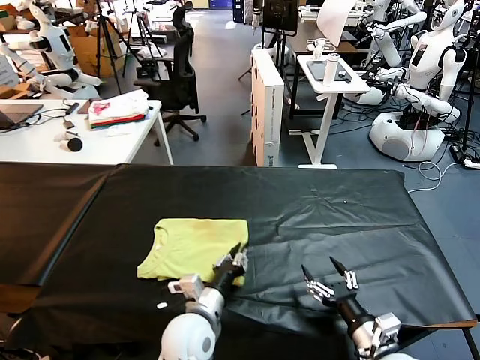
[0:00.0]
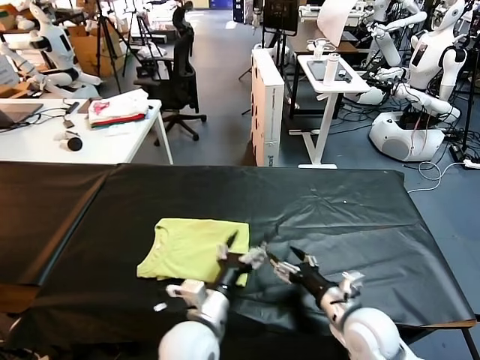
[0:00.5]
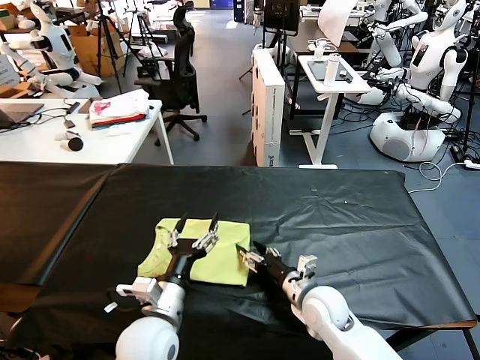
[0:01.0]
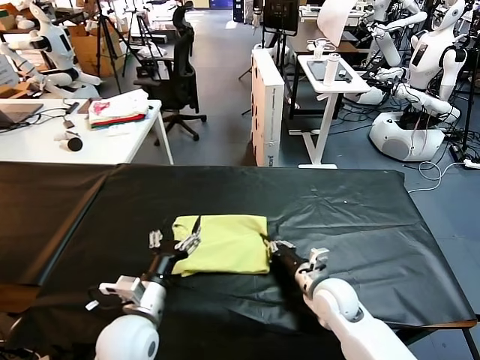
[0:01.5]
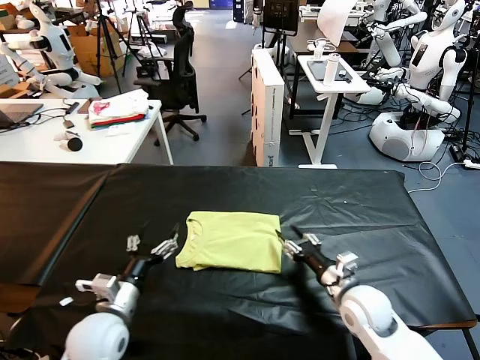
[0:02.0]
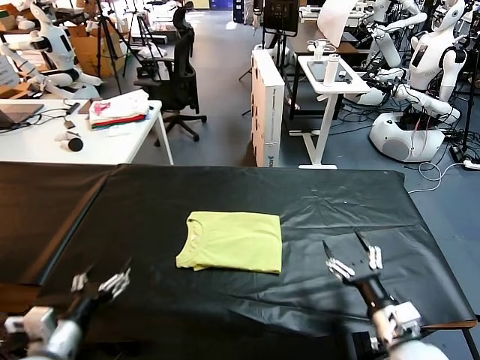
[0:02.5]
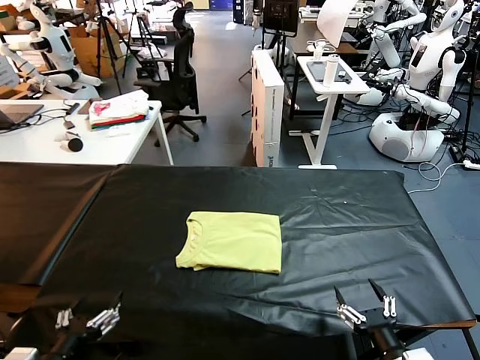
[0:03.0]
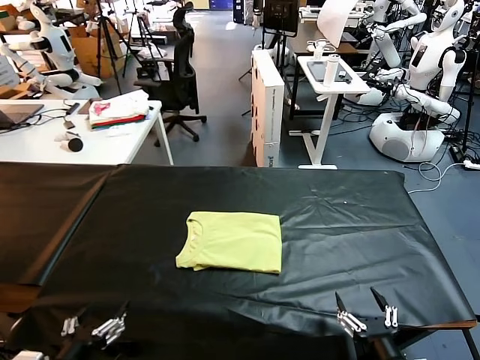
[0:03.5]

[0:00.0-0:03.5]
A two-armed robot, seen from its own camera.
Task of the whole recording: fold and organize the clothes.
Step, 0:00.5 to 0:02.0: Drag the clothes to the center of the table.
0:00.0 to 0:02.0: The left gripper heads to the left, covering about 15 cm, and opens its fingers. Meanwhile the right gripper heads forward, covering some 15 cm, and closes up.
0:02.0 to 0:03.5: The two grippers go approximately 20 cm backward. The right gripper opens up.
